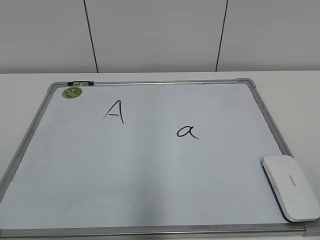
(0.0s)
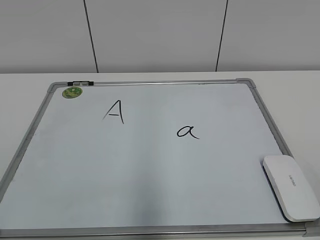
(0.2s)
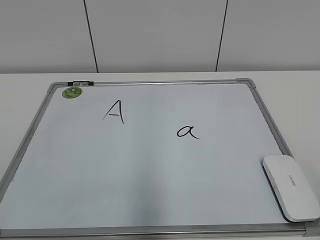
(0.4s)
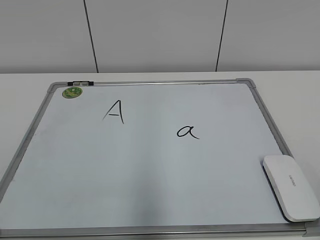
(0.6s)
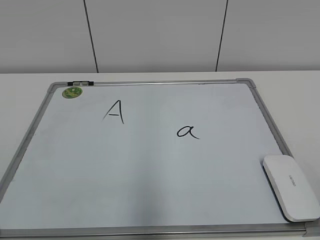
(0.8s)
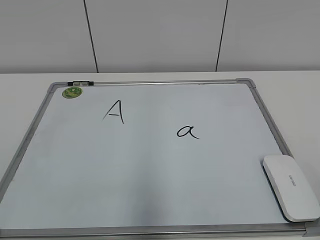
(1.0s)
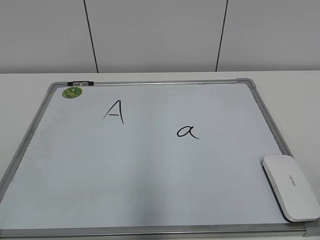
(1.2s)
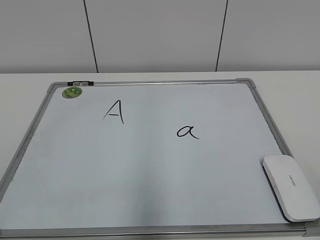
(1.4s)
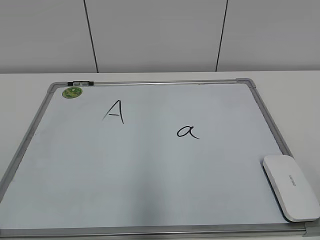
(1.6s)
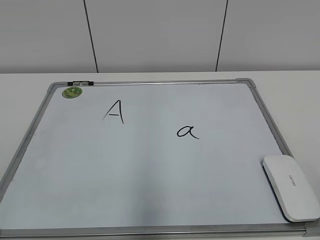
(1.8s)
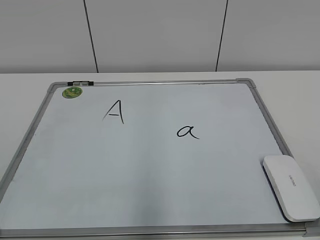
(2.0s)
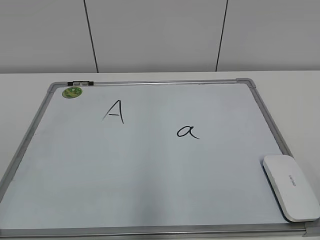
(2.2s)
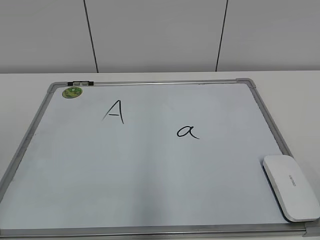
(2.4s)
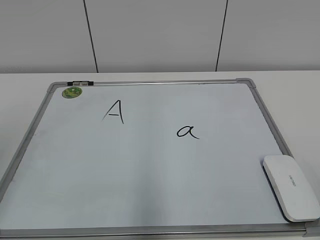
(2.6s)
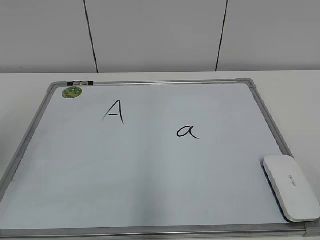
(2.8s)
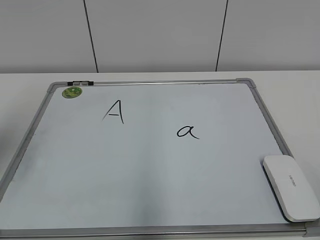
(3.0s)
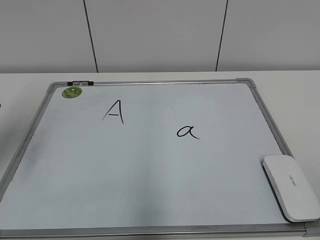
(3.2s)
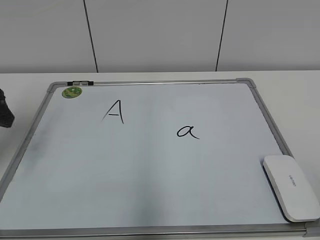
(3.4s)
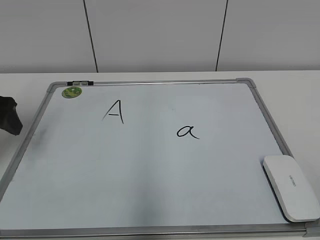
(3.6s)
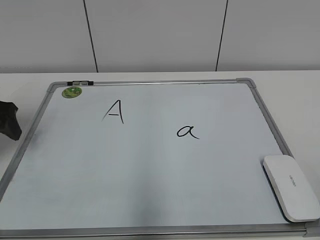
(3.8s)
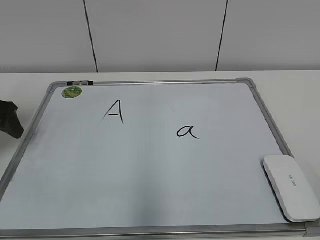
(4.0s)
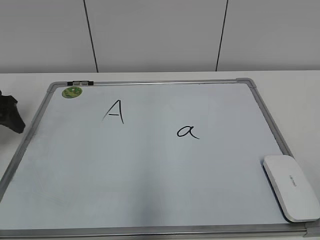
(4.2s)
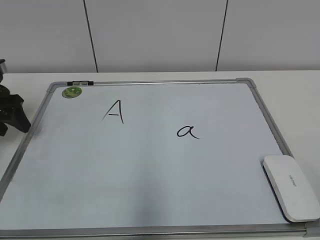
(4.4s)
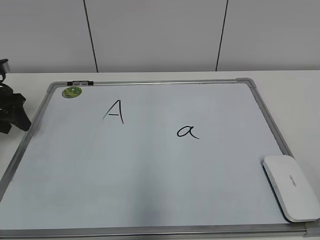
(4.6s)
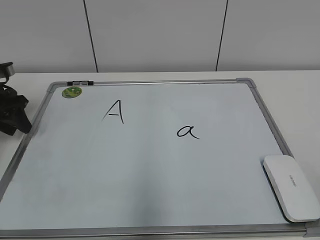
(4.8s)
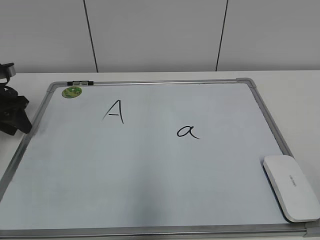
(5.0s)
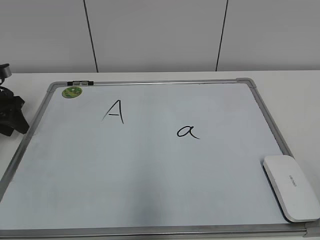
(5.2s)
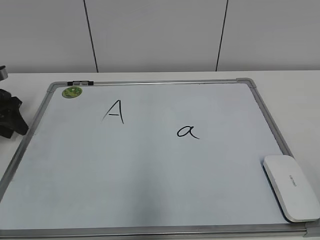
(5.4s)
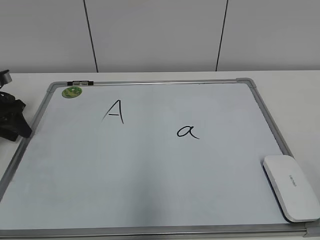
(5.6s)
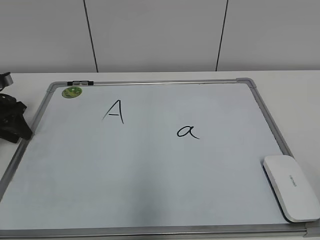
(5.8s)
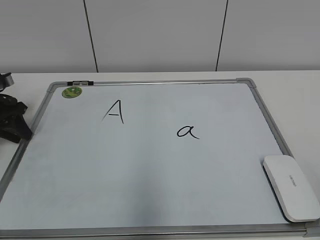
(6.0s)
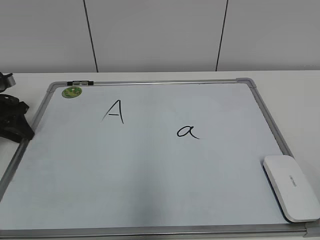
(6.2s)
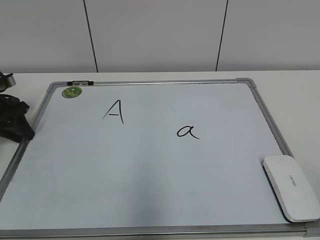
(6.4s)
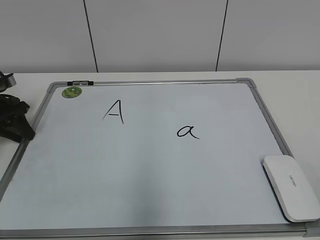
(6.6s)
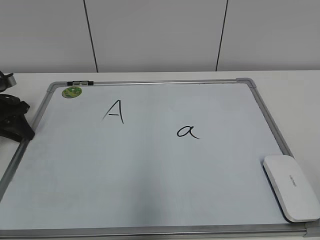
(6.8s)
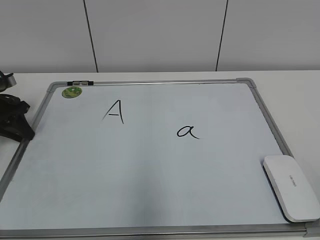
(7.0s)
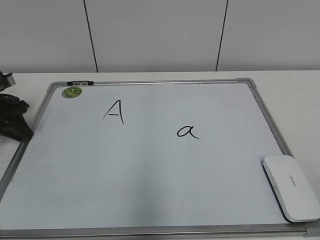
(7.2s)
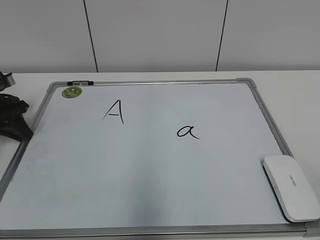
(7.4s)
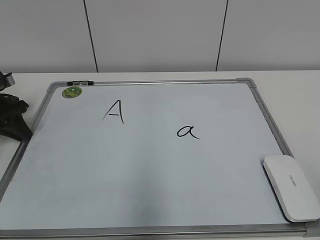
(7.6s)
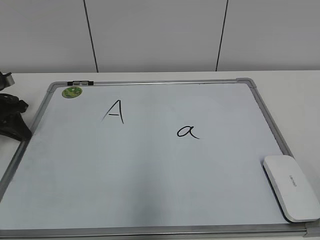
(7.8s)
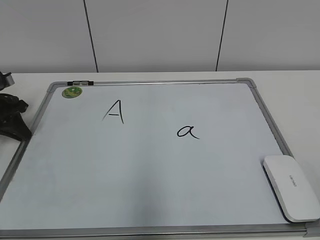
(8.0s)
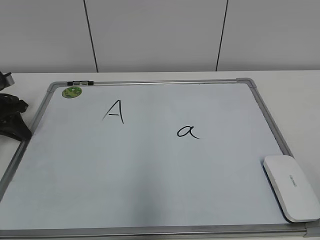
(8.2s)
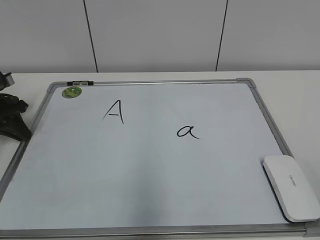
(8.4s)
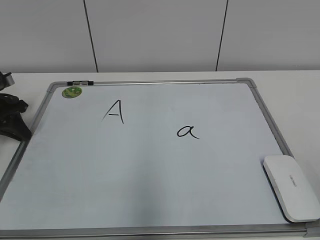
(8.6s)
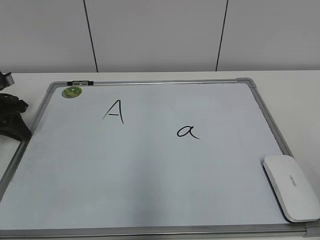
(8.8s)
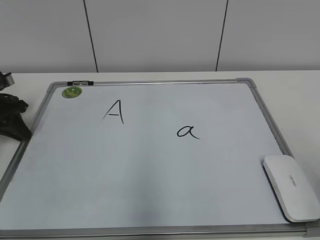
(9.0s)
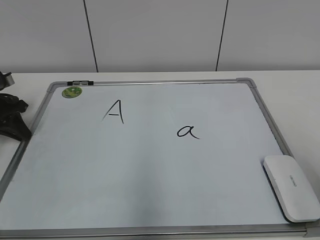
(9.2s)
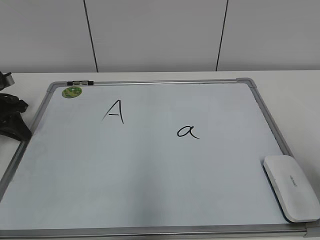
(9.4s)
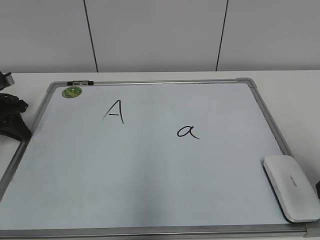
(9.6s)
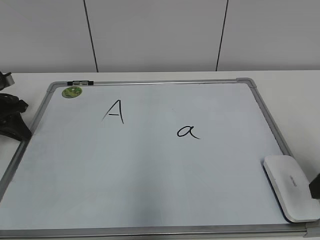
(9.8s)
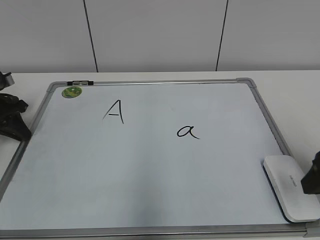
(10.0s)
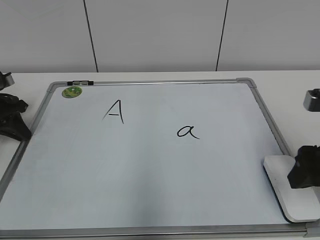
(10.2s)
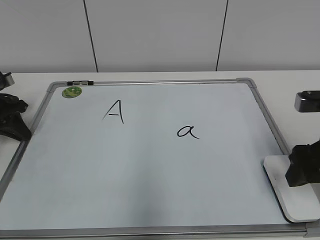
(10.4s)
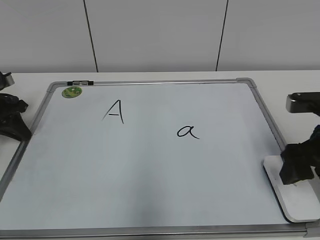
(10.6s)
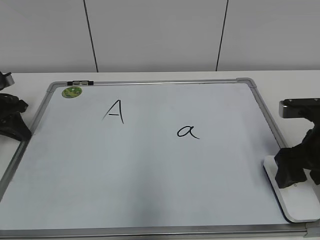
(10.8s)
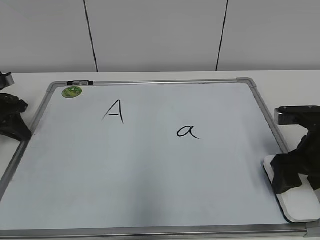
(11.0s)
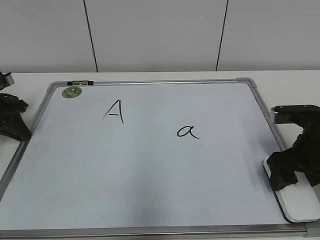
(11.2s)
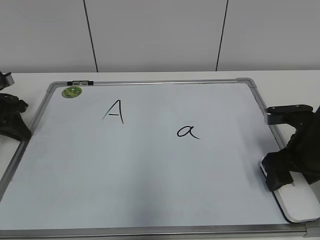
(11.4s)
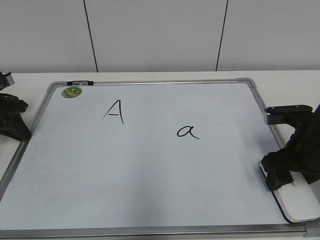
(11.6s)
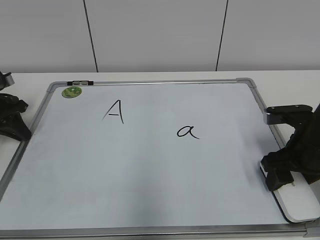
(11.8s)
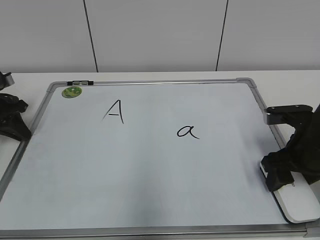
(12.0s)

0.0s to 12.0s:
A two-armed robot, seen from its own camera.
Task of the whole recording: pick up the eraser on the blackboard and erase the letter "a".
Step, 8.2s to 11.8s: Grab the eraser with your right hand.
1.6s to 3.0s: The left gripper heads forward, covering approximately 25 cm, and opens its fingers.
3.0s to 4.4s: The left gripper is displaced forward and downward by approximately 20 cm.
4.4s to 6.0s: The left gripper moves some 5 cm, and closes up.
6.0s to 7.6s: Neither gripper changes place.
9.0s to 10.4s: The right gripper goes about 20 cm forward and downward.
10.4s to 12.0s: The right gripper shifts approximately 5 cm downward, and closes its fingers.

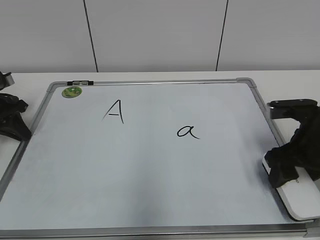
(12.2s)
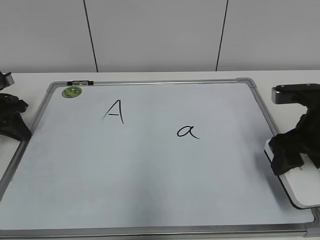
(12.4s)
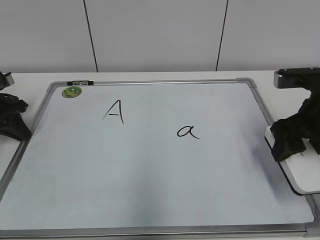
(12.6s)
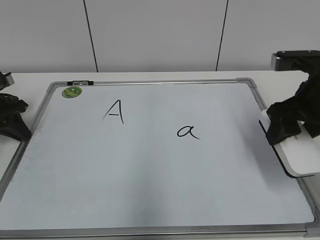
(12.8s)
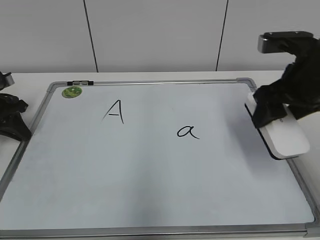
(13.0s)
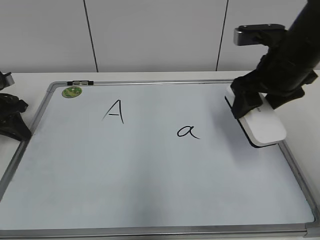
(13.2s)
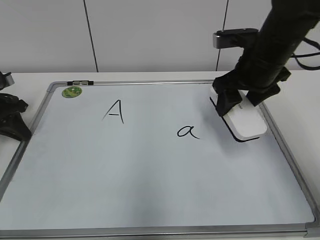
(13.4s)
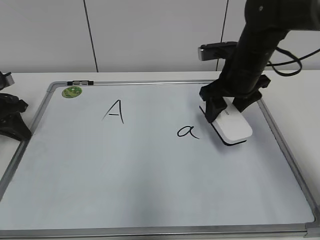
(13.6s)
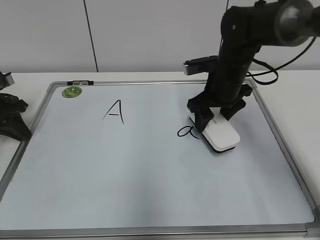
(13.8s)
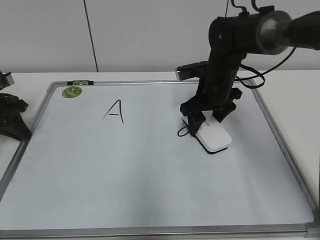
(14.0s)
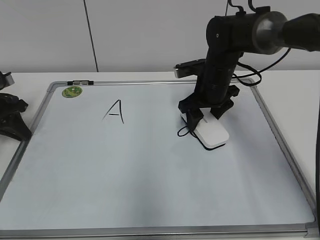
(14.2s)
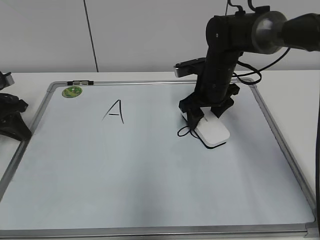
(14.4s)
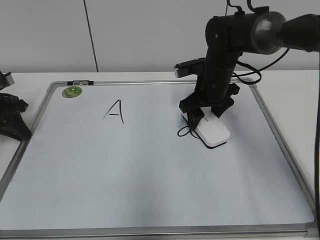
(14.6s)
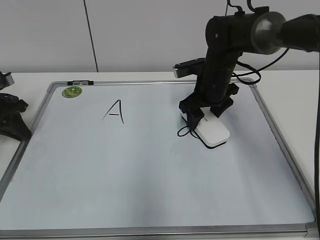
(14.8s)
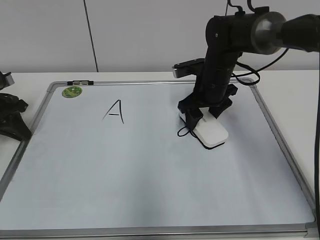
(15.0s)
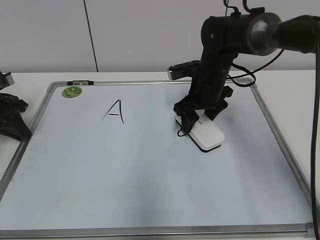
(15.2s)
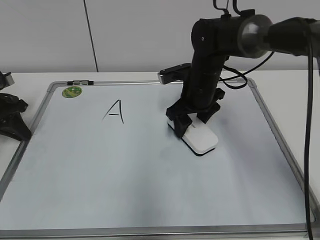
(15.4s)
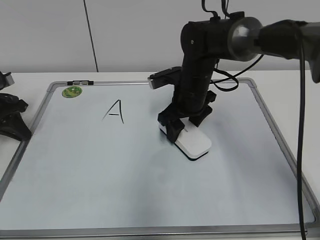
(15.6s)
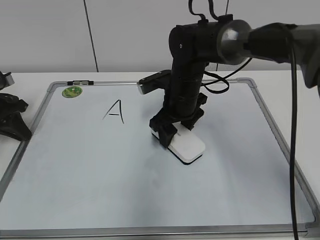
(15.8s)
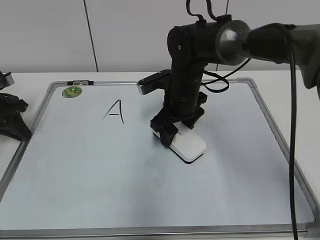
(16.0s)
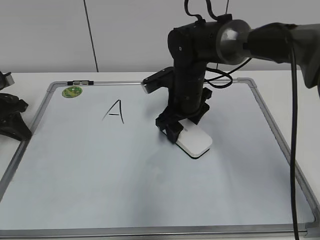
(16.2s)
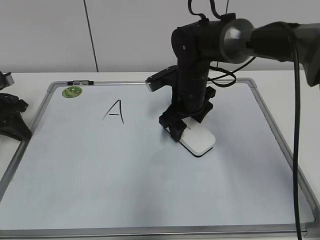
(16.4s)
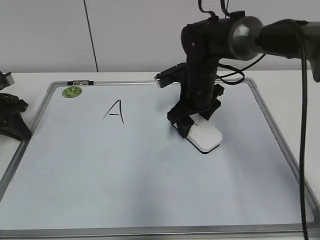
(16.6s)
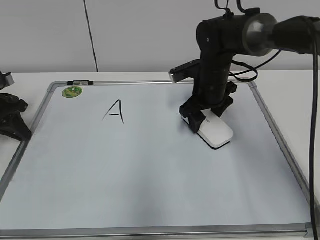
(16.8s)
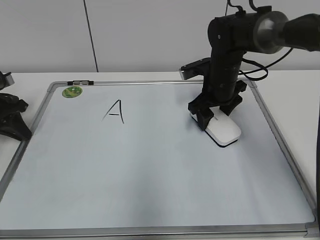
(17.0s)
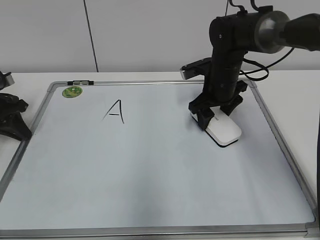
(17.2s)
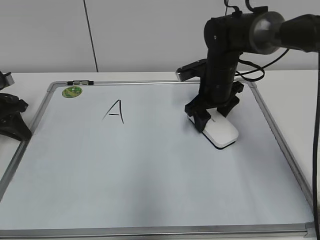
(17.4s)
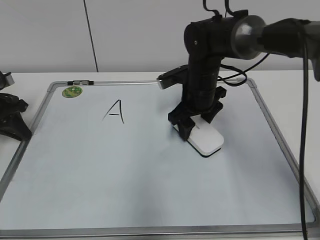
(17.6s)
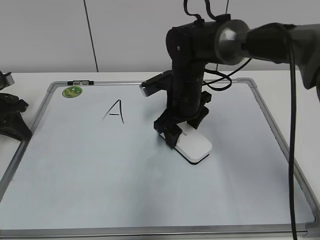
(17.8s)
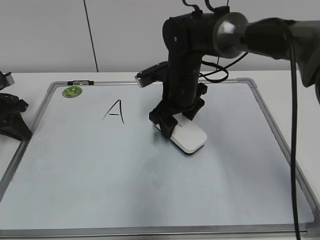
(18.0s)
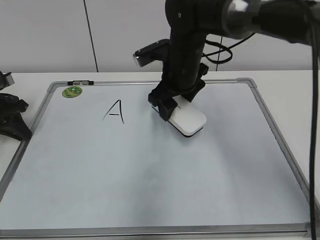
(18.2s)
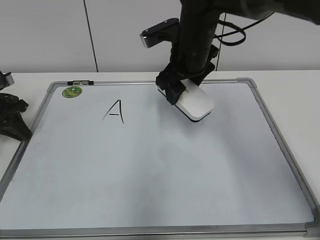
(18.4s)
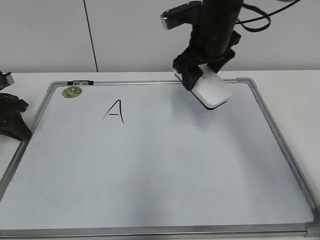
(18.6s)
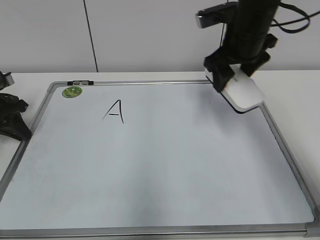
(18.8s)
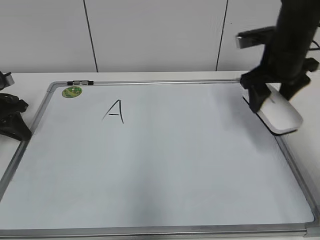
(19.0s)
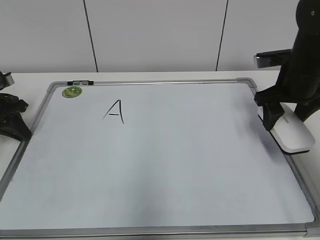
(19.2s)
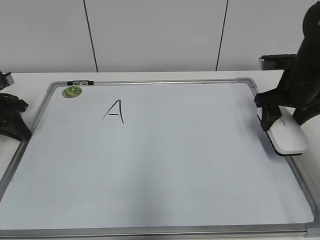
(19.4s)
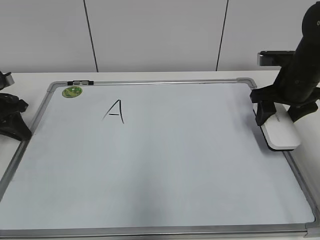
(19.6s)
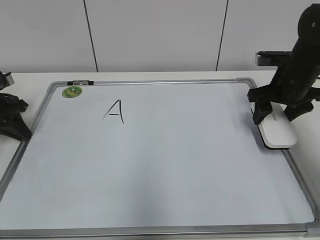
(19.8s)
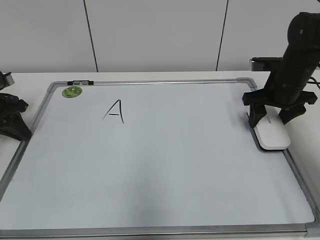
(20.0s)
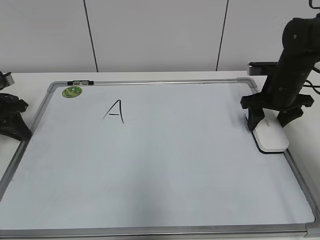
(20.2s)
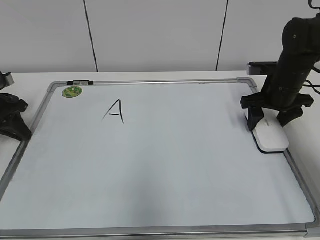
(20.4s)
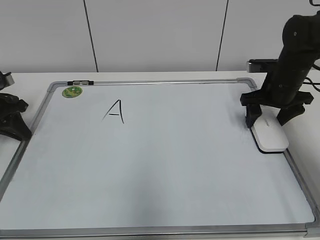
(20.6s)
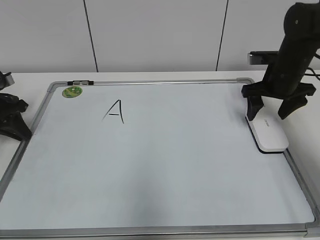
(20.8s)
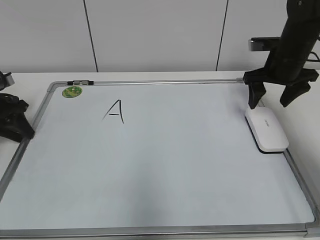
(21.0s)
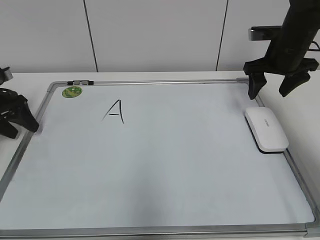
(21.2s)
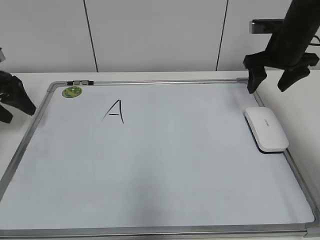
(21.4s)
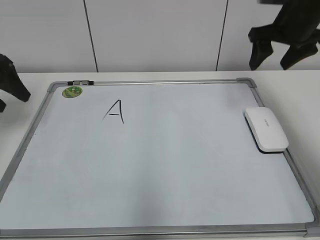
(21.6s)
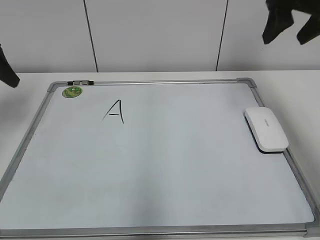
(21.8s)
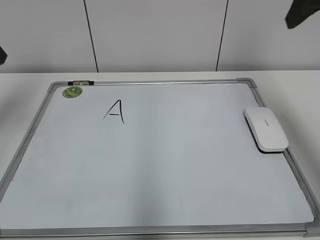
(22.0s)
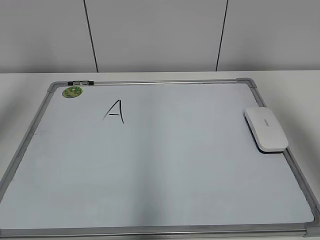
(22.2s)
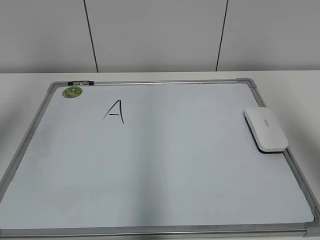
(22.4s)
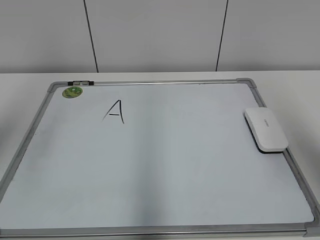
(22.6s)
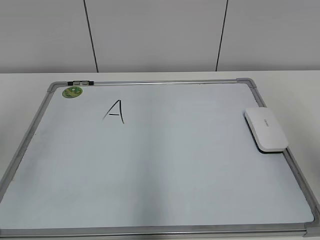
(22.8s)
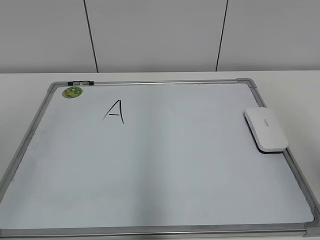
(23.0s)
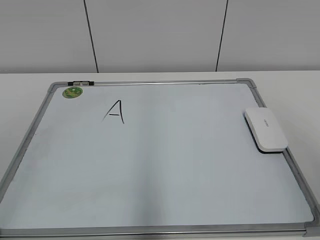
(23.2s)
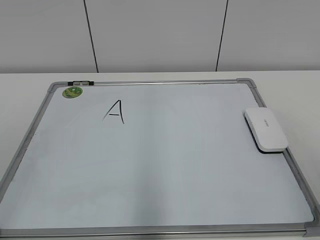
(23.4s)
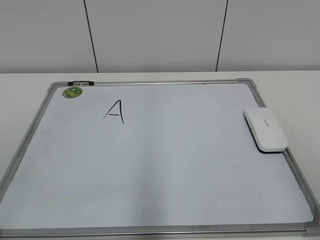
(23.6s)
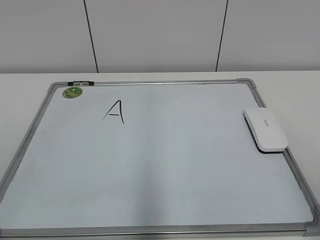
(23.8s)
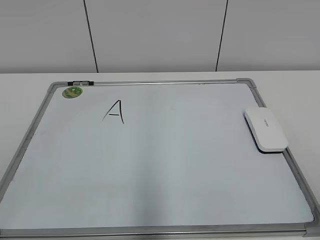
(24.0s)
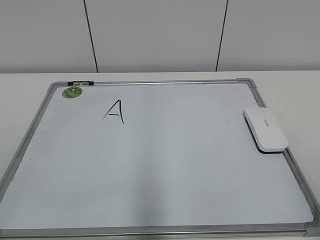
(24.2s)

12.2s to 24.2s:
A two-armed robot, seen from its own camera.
Task of the whole recording: pick up the eraser on the blackboard and erase the letter "a".
Step, 12.2s to 17.6s: Erase the letter a with your right hand.
Step, 17.8s to 20.4s: Put down the eraser with your right hand.
12.2s to 13.8s: The right gripper shifts approximately 20 cm forward and to the left.
13.8s to 15.2s: The grippers stay close to where they were, moving slightly.
15.2s to 16.6s: There are only small adjustments of the grippers.
16.6s to 18.2s: The right gripper is displaced upward by some 5 cm.
18.2s to 19.8s: The right gripper travels to the right by about 20 cm.
19.8s to 21.2s: The left gripper opens. The right gripper moves about 5 cm, and opens up.
21.2s to 22.6s: The left gripper travels upward and backward by approximately 35 cm. The right gripper is displaced backward and upward by roughly 35 cm.
22.6s to 24.2s: The right gripper heads backward and downward, covering some 20 cm. Meanwhile the left gripper goes about 25 cm downward and backward.
